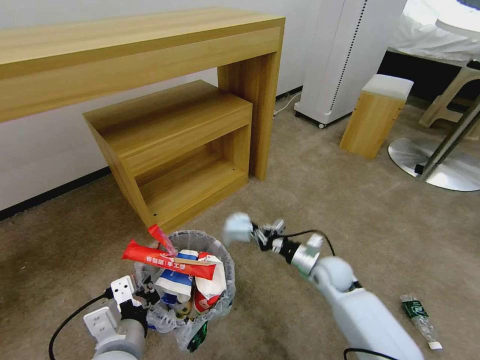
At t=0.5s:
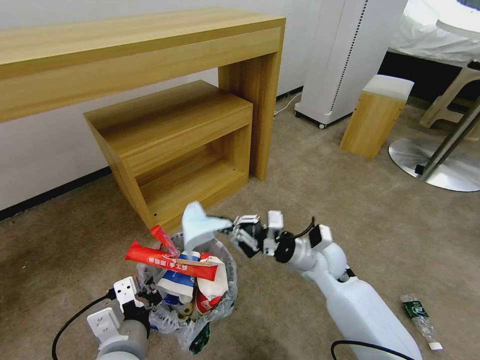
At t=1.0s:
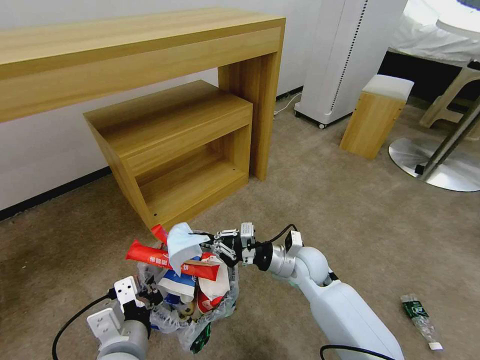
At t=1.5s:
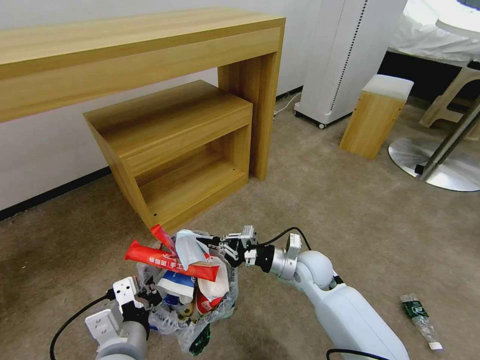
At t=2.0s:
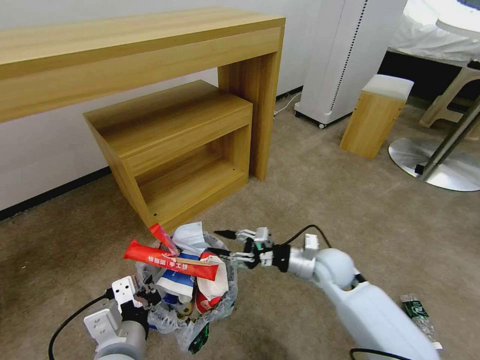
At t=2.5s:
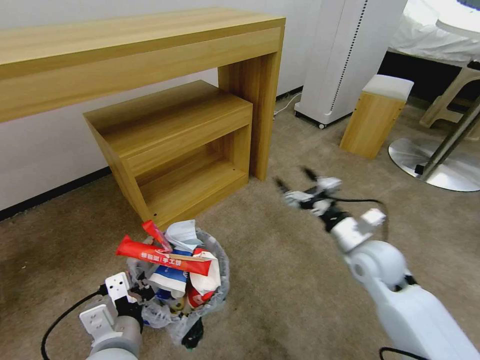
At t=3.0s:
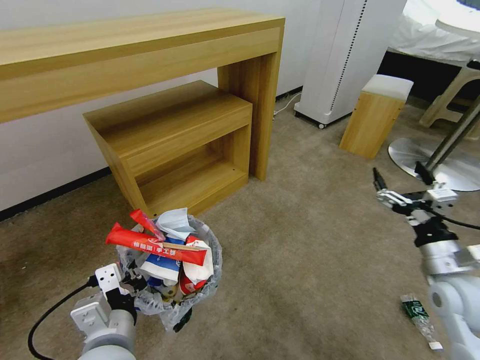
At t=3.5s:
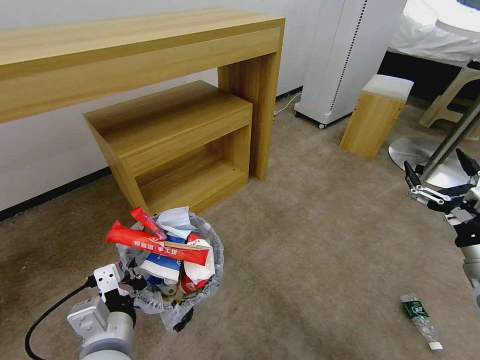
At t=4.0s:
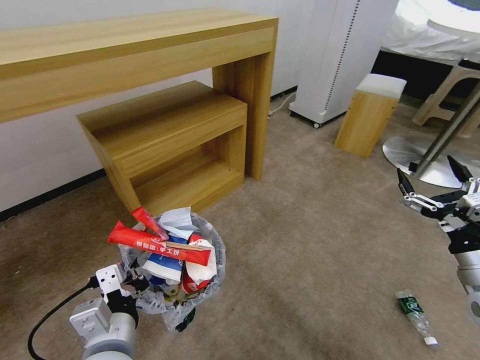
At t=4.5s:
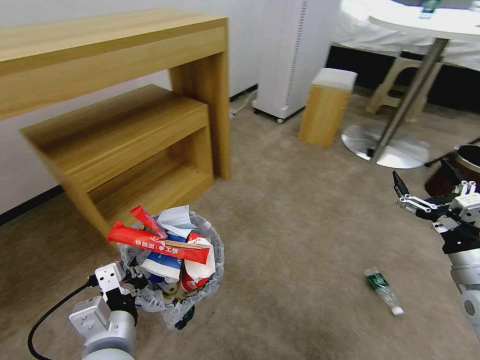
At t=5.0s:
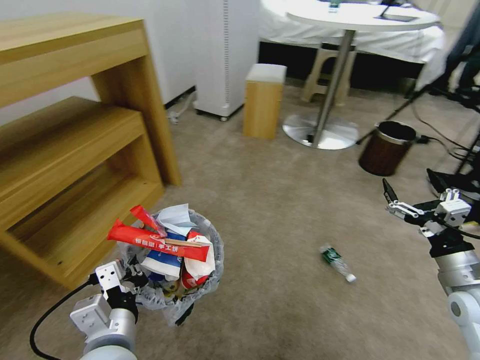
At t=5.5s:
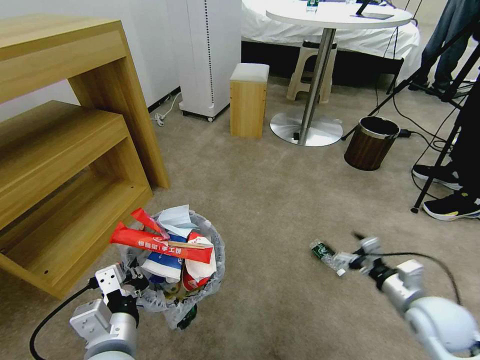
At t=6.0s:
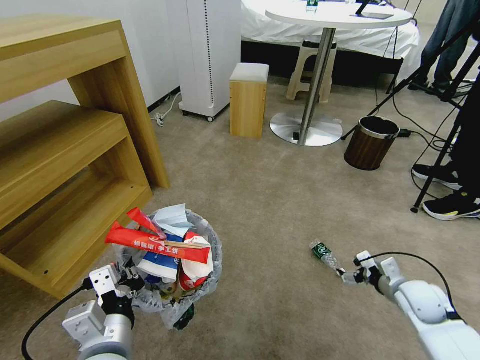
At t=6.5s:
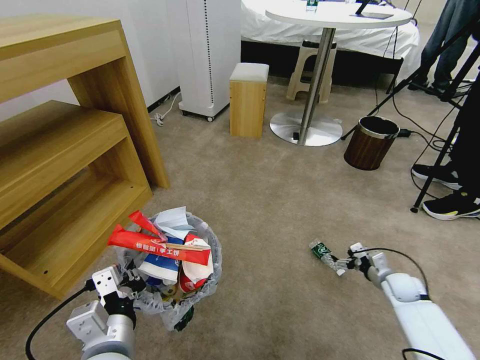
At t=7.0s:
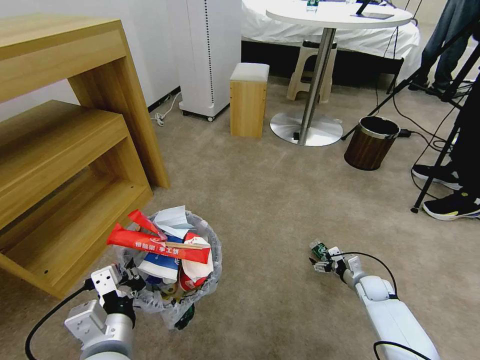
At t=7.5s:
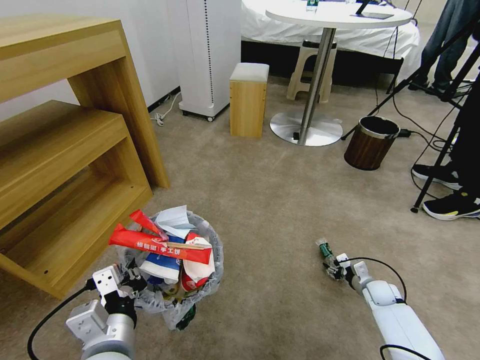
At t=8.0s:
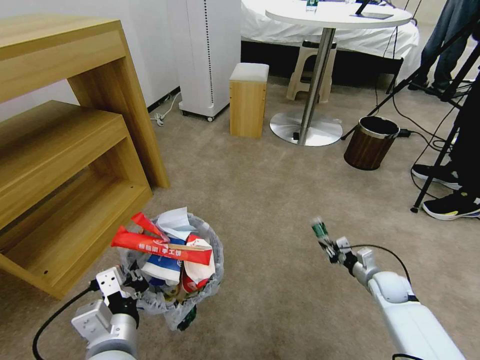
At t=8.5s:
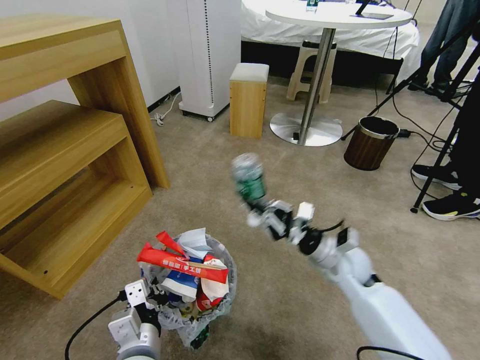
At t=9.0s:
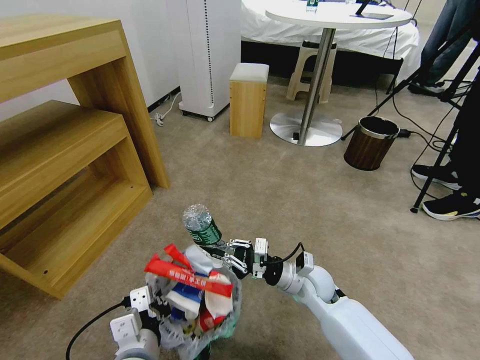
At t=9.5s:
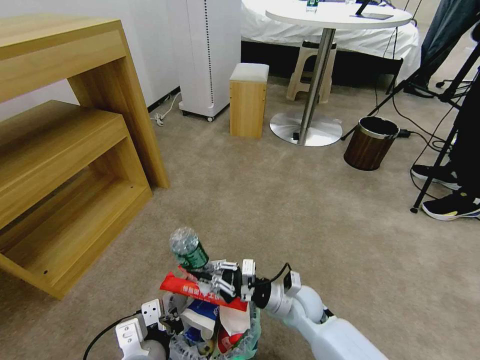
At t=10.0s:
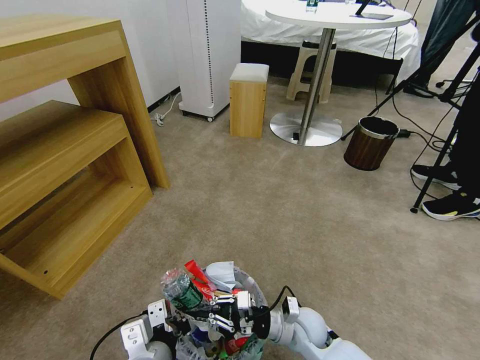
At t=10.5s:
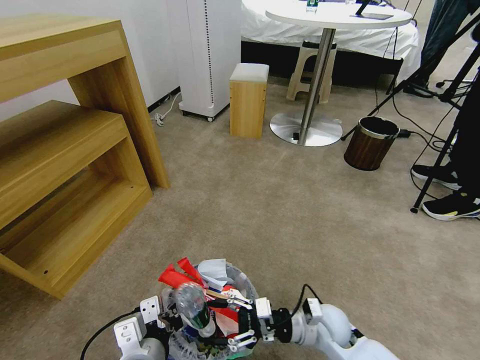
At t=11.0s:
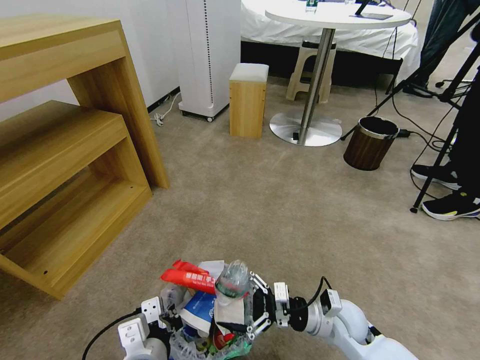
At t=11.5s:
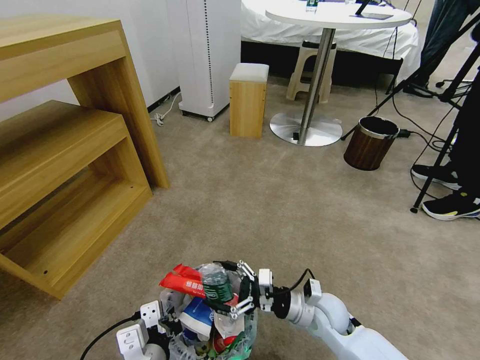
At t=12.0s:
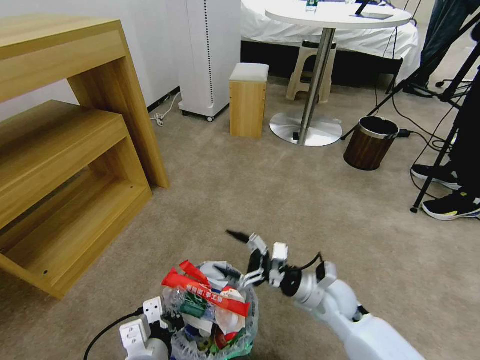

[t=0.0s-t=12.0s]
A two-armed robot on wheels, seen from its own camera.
Task of the whole recording: Pick up the trash bin and place the garbage on the floor into it.
t=0.0s to t=2.0s: The right gripper goes approximately 5 cm upward, and opens its fingers.
t=2.0s to t=4.0s: The right gripper travels to the right, backward and upward by about 30 cm, and opens.
t=4.0s to t=6.0s: The right gripper travels downward and forward by approximately 20 cm.
t=6.0s to t=8.0s: The right gripper travels downward and forward by approximately 10 cm, and closes up.
t=8.0s to t=10.0s: The right gripper heads to the left, covering some 25 cm.
t=10.0s to t=12.0s: The right gripper travels upward by about 5 cm, and opens up.

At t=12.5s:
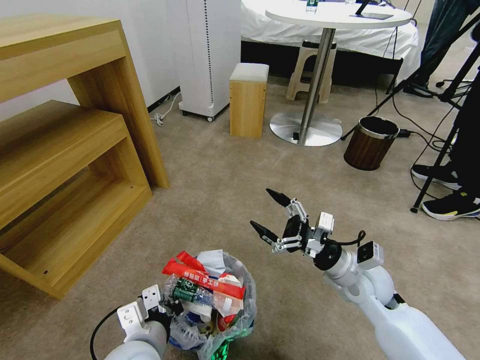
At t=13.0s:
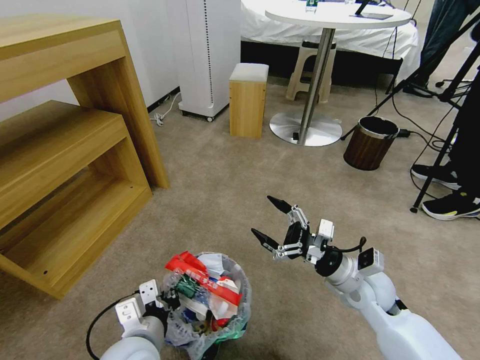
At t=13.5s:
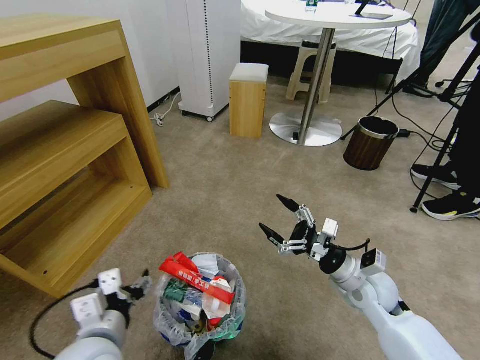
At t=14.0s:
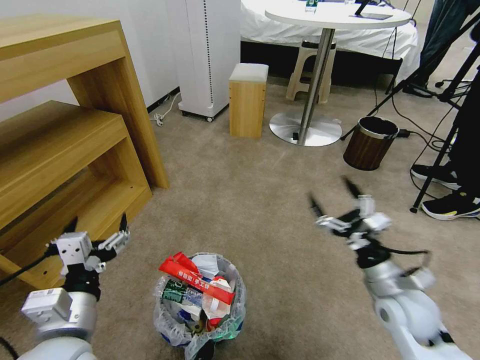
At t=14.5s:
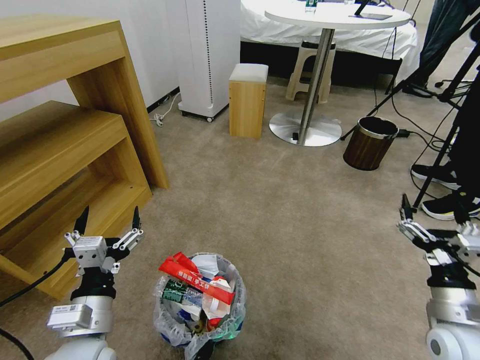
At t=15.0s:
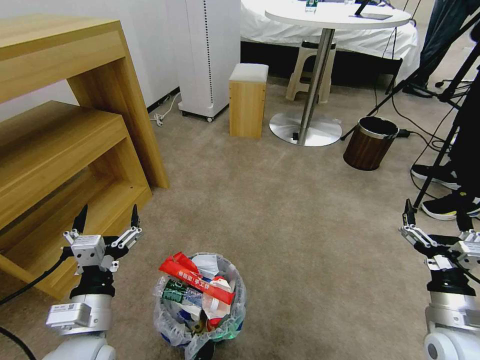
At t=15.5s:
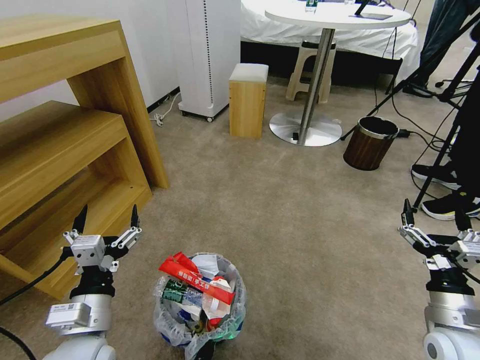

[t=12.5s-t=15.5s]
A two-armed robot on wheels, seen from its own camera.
Task of the whole recording: Pick up the trash bin and place the garbage on the floor into it.
t=12.5s to t=14.0s: The left gripper moves to the left and upward, roughly 10 cm, and opens up. Meanwhile the right gripper goes about 10 cm backward and to the right.
t=14.0s to t=15.5s: The right gripper travels to the right and backward by approximately 10 cm.
